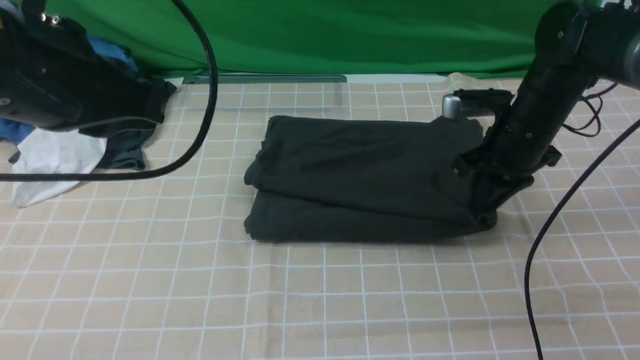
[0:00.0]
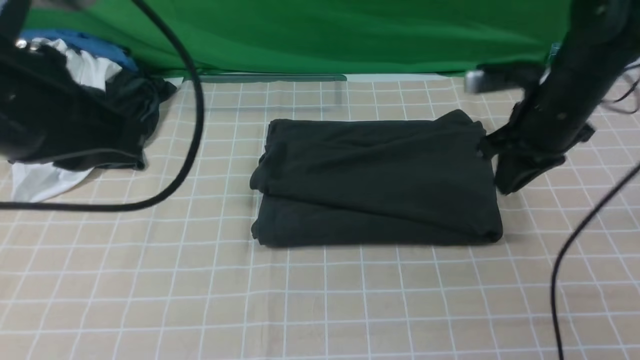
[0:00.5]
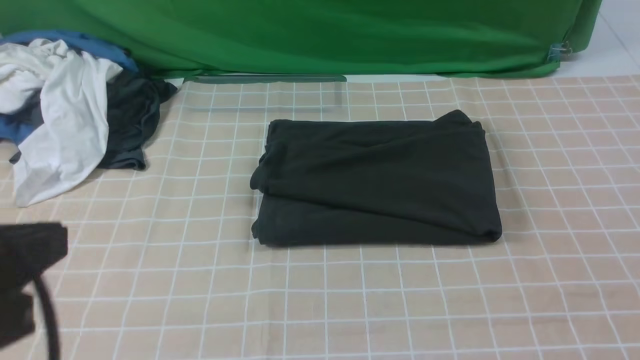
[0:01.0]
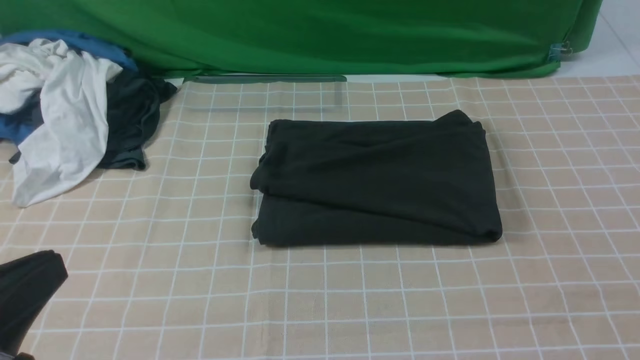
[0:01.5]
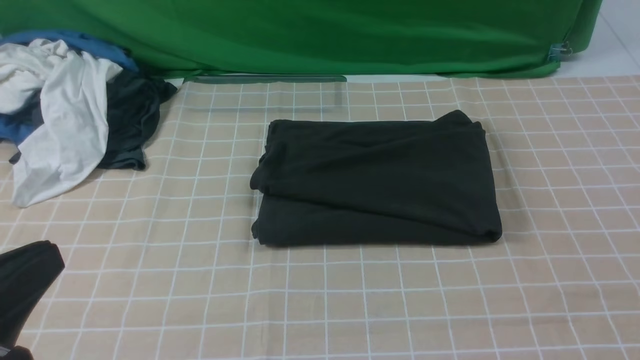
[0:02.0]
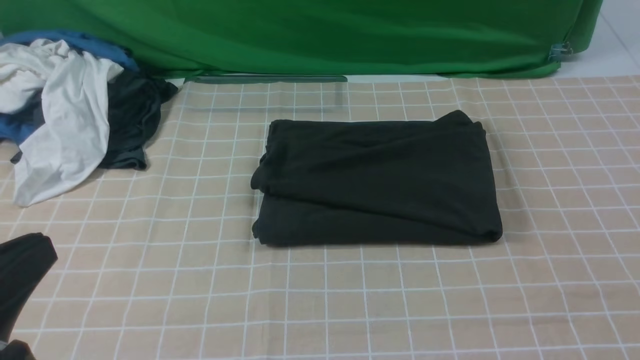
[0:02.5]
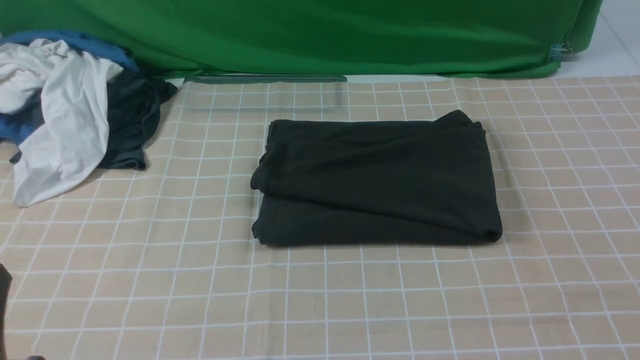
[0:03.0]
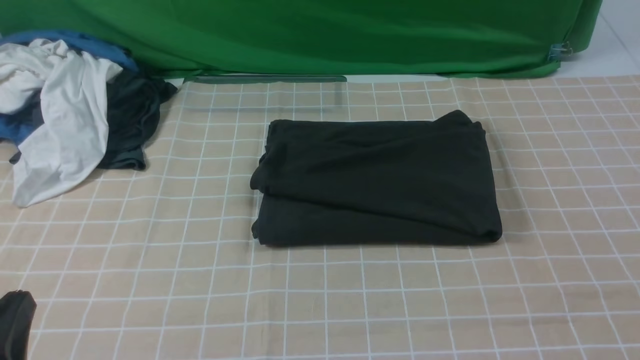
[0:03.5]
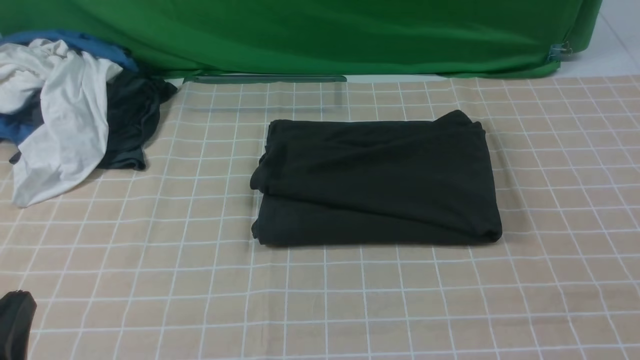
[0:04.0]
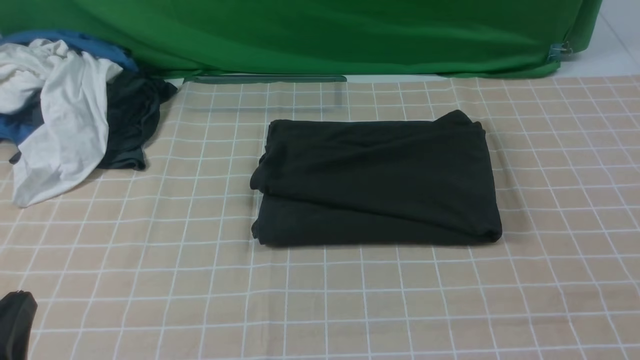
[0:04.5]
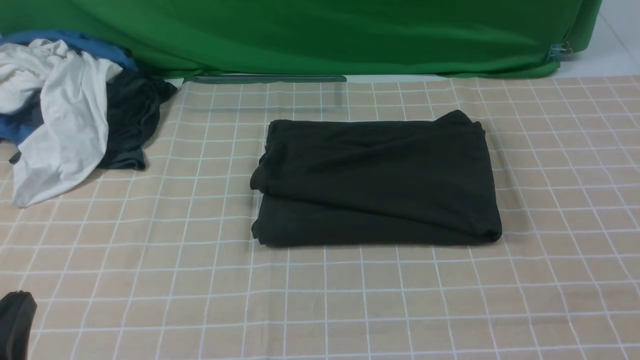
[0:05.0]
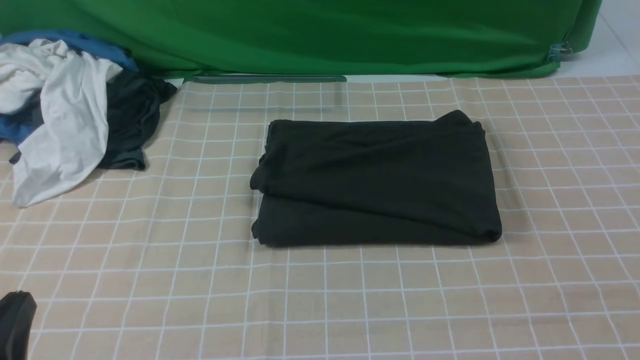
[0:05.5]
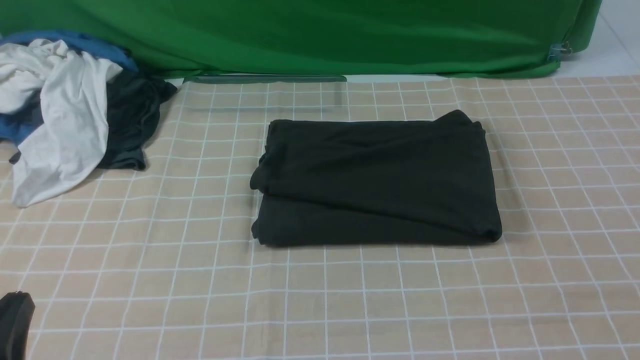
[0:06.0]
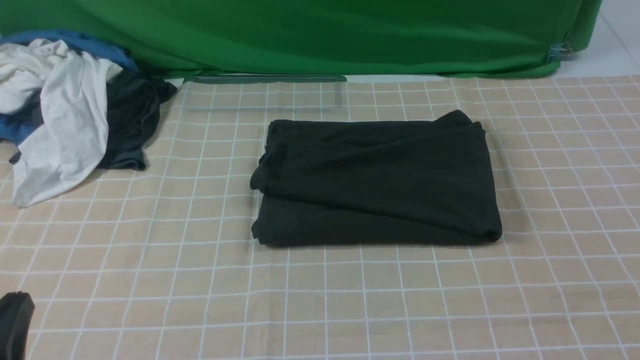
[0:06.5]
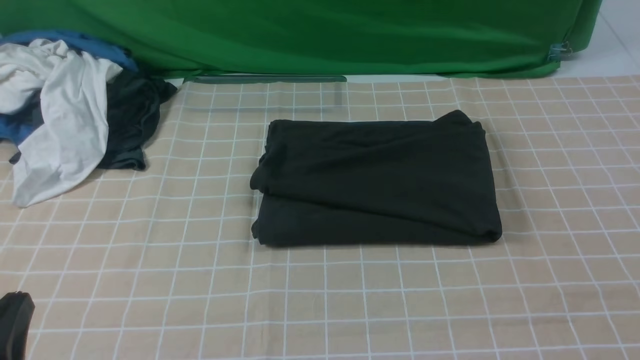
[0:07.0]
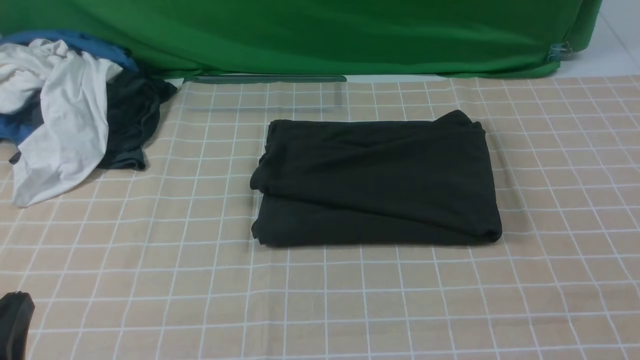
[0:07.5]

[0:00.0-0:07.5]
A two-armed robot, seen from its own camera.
0:00.0 to 0:02.0: The right gripper is displaced backward and upward by about 40 cm. The left gripper goes approximately 20 cm backward and downward.
0:02.0 to 0:04.0: The left gripper moves downward, roughly 10 cm.
